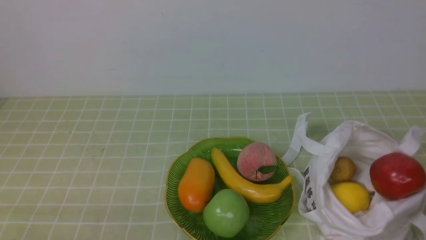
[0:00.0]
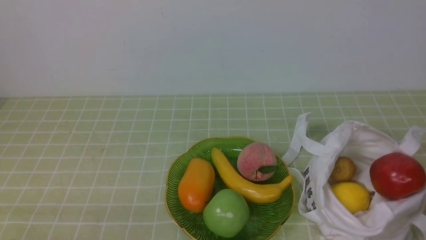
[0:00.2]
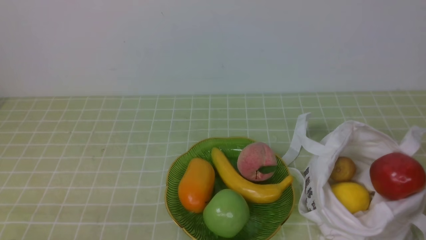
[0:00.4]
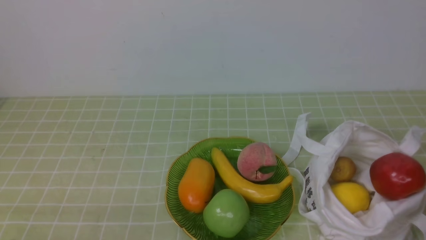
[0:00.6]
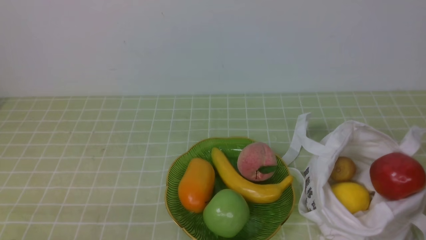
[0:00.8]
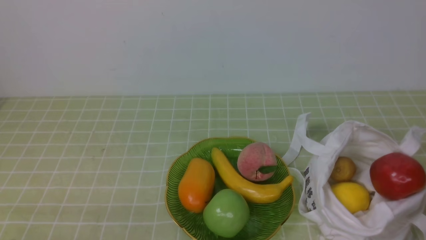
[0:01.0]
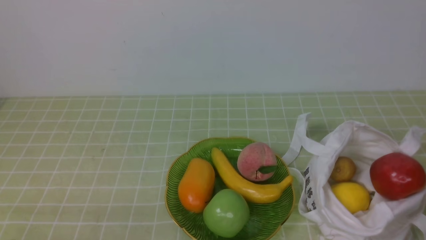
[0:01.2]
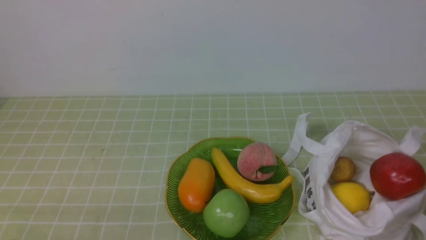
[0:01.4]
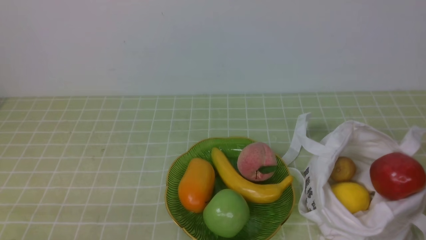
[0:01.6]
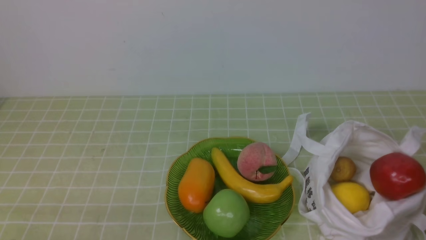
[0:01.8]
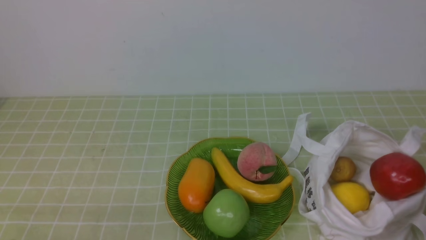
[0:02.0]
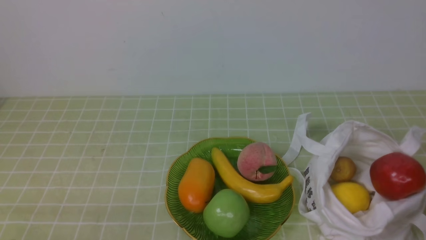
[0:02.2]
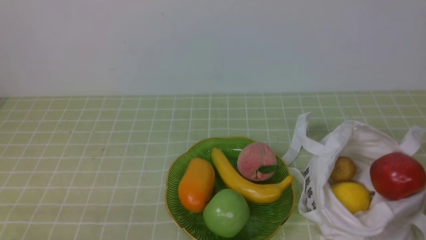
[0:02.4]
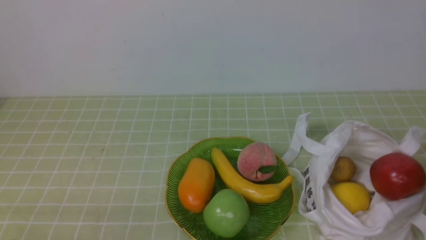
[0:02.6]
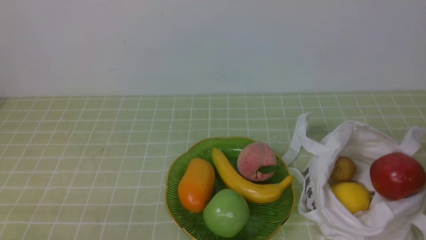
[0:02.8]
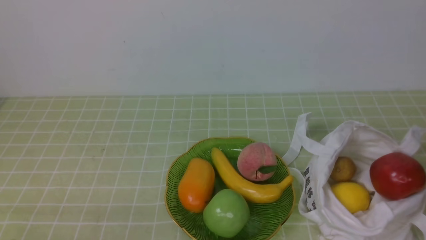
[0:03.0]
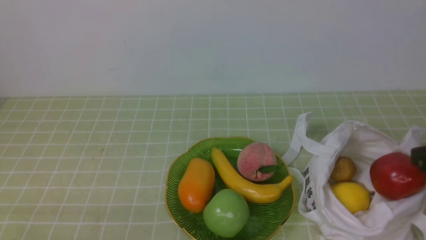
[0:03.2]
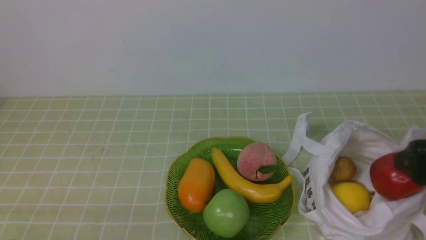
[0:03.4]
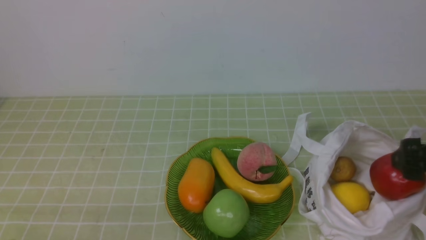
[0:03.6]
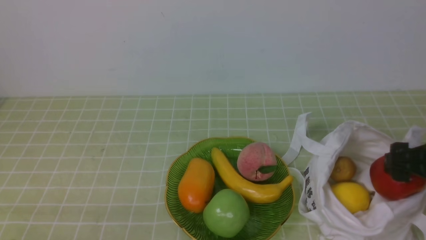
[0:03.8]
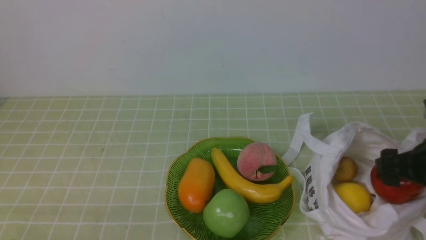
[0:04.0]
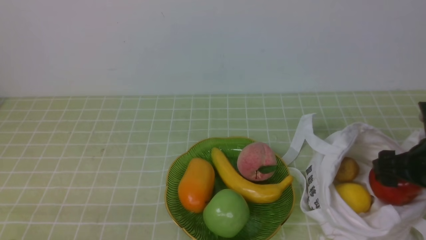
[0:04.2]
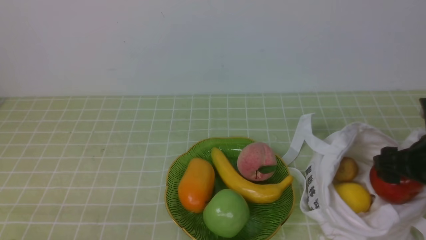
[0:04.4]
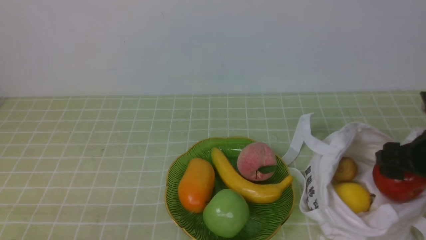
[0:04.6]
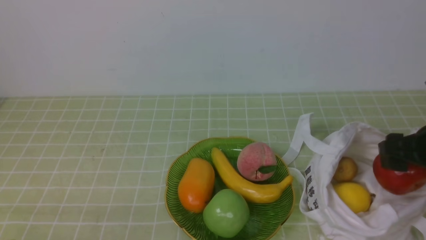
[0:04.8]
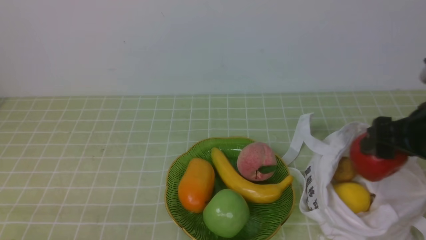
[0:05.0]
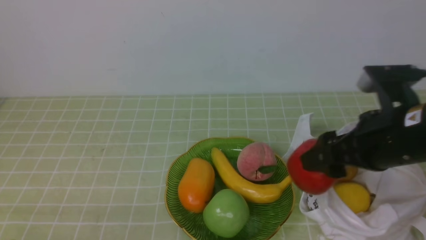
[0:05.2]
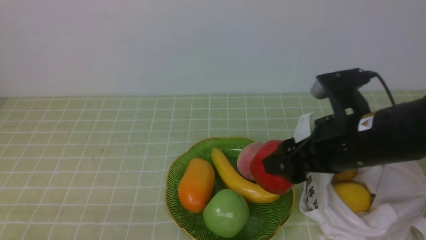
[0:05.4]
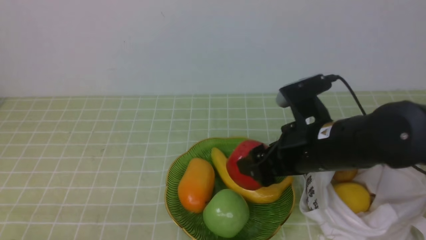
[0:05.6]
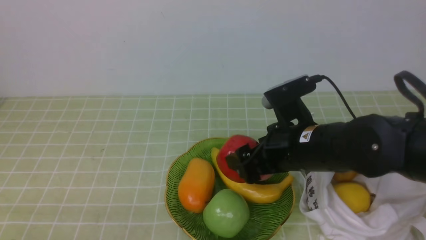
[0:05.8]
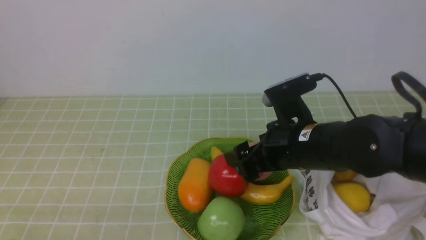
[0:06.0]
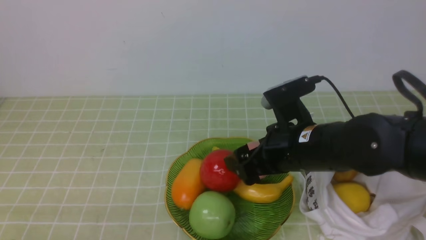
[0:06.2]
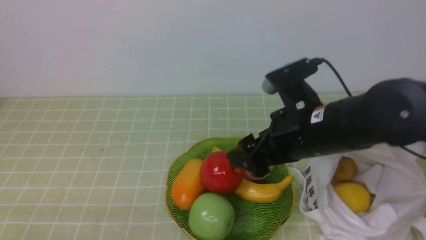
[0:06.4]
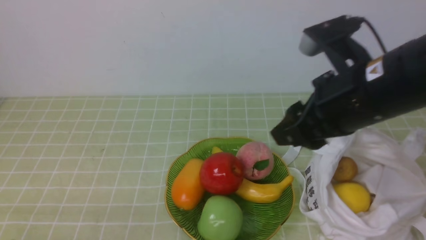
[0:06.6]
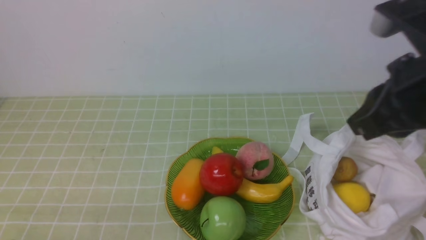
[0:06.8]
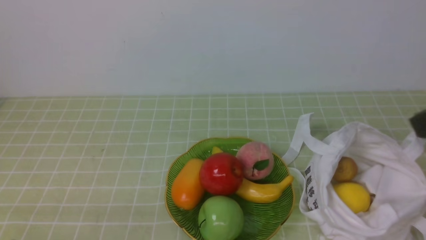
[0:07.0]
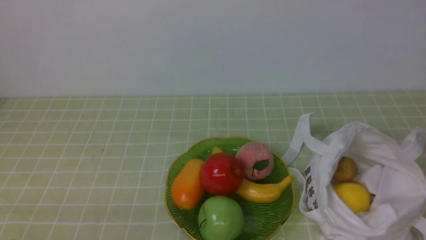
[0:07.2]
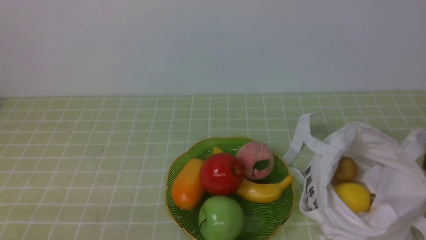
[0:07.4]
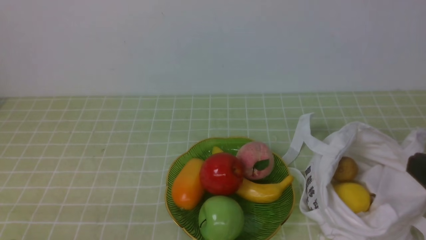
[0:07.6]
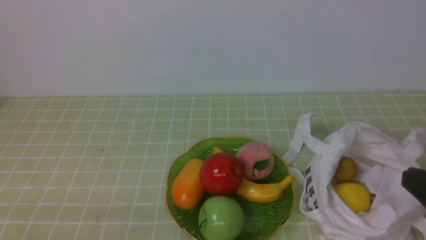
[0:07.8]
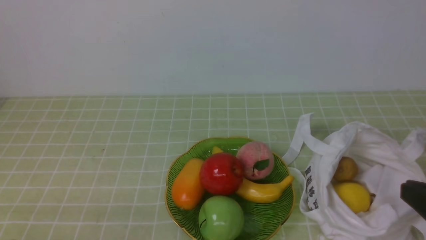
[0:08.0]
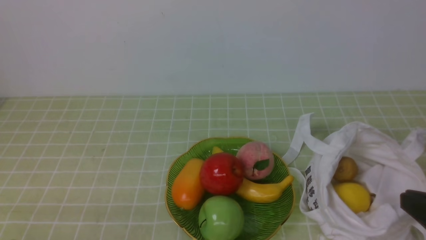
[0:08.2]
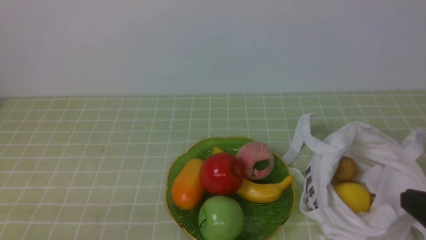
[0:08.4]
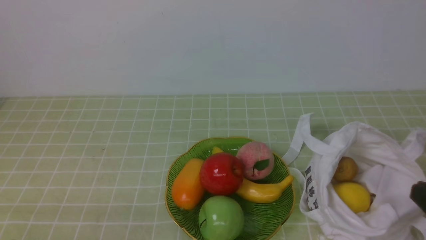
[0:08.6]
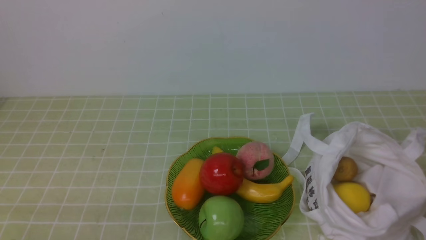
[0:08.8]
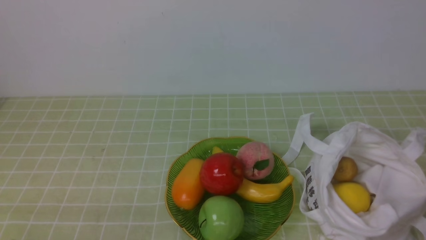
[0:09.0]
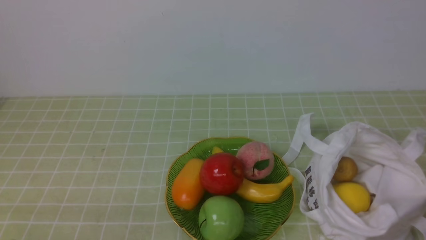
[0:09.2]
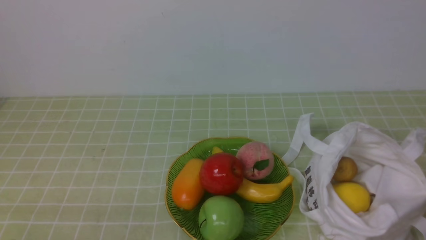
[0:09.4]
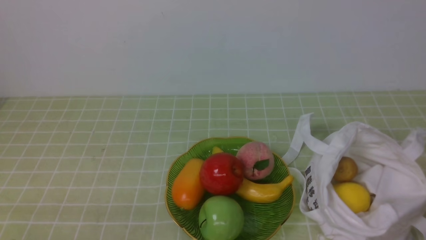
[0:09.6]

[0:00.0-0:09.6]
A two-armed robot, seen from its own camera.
Step, 0:00.0 to 0:04.6: use the right arm to grab an apple from the bag.
Step, 0:04.8 to 0:06.2: use the right arm to put the apple into the empty plate on the left.
0:03.2 to 0:04.8: The right gripper moves forward and downward, approximately 10 cm.
0:04.8 to 0:06.4: The right gripper shifts approximately 15 cm to the left.
0:06.4 to 0:08.0: The right gripper is displaced backward and to the right by approximately 20 cm, and closes up.
0:08.0 to 0:09.6: The right gripper heads downward, covering some 10 cm.

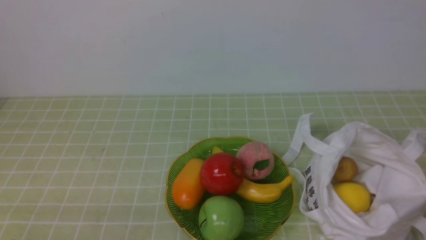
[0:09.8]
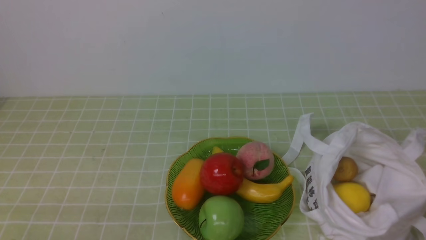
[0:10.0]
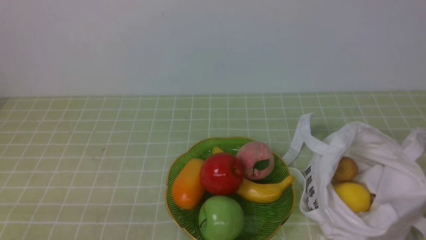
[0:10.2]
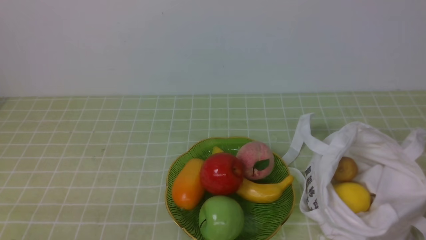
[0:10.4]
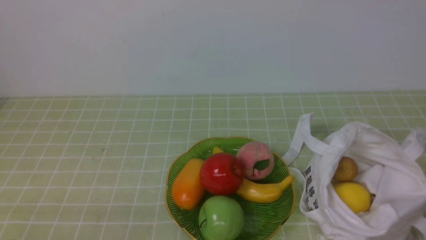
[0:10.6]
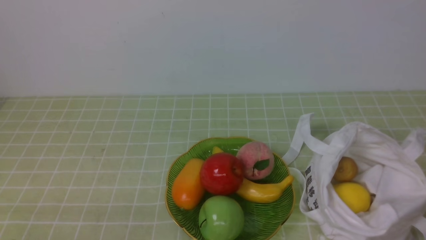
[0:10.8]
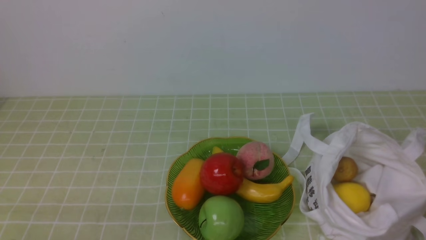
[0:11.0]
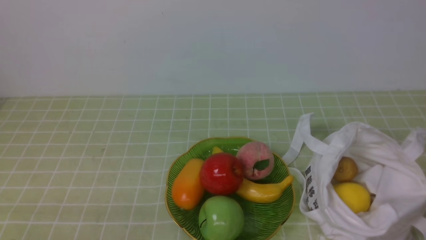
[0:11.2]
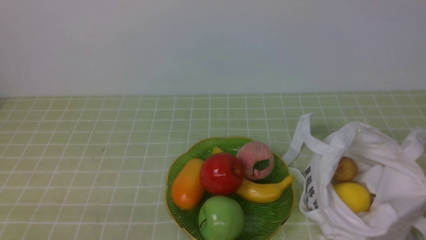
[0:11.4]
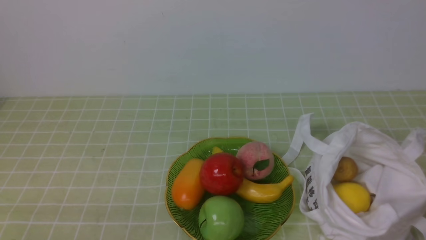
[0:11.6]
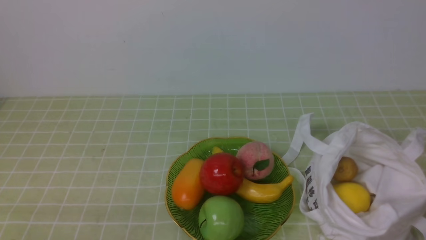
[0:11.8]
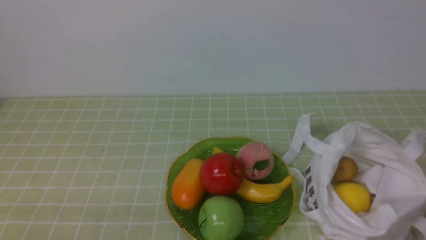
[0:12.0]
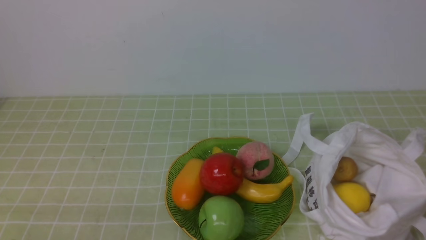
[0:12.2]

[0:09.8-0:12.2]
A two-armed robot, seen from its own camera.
0:09.8 to 0:12.2: Both grippers stay put.
